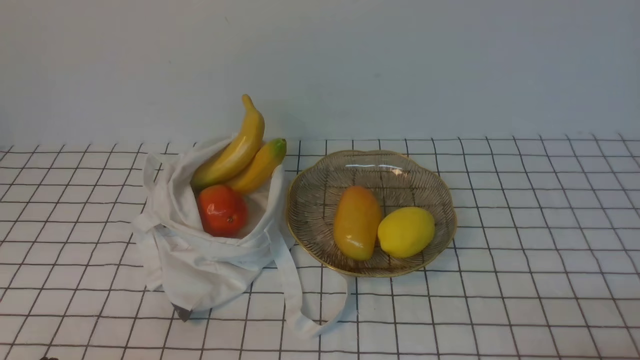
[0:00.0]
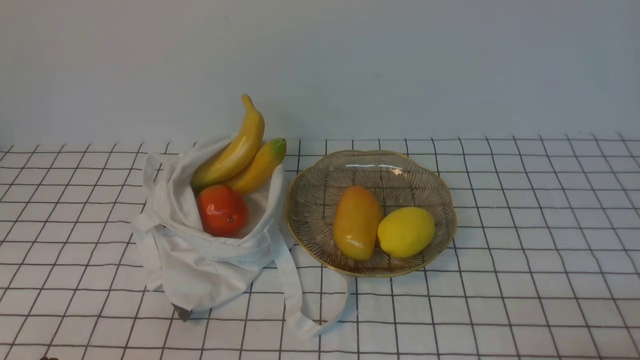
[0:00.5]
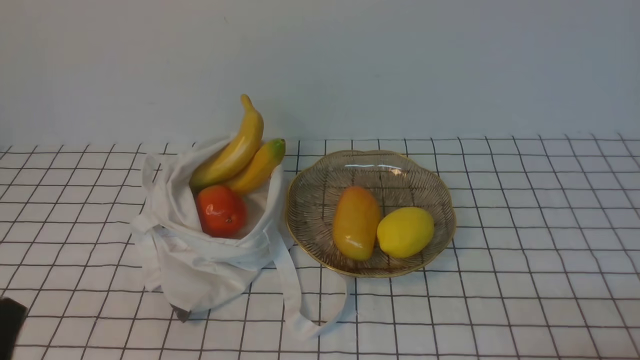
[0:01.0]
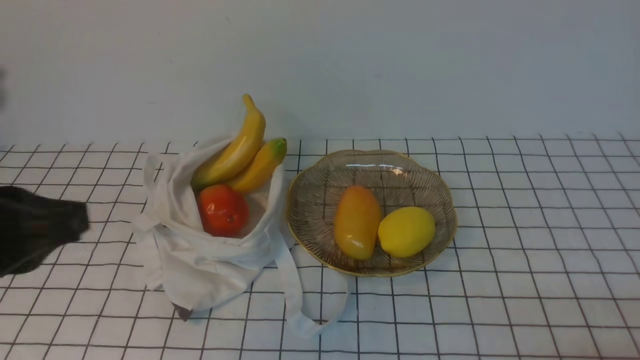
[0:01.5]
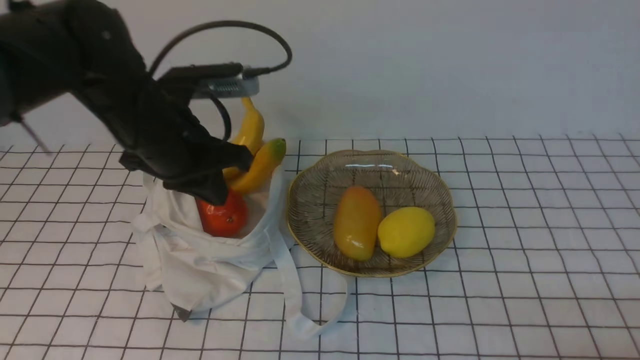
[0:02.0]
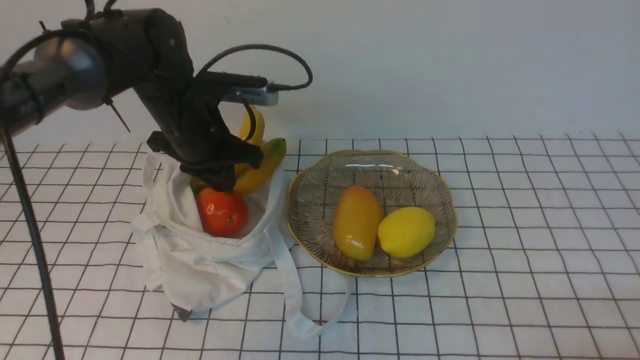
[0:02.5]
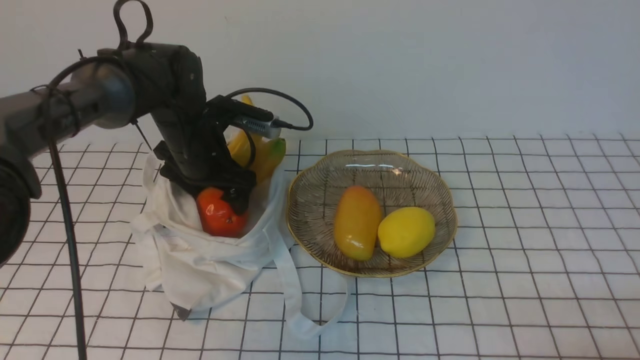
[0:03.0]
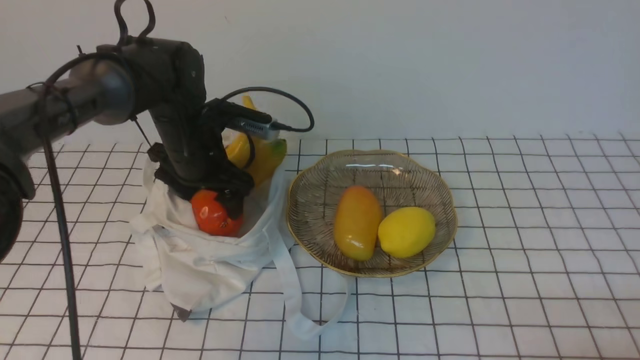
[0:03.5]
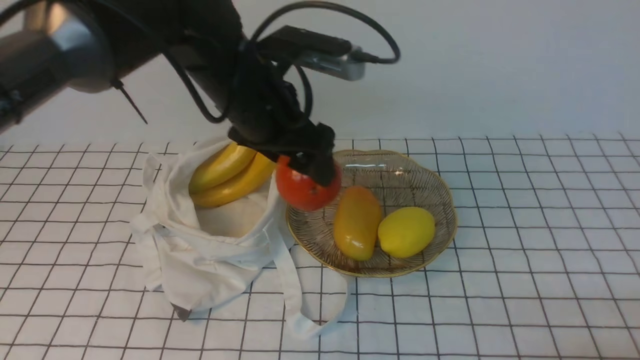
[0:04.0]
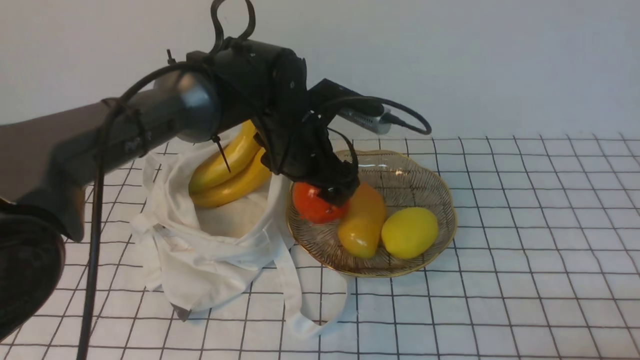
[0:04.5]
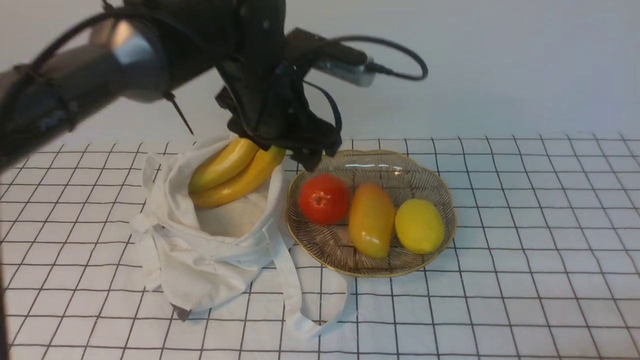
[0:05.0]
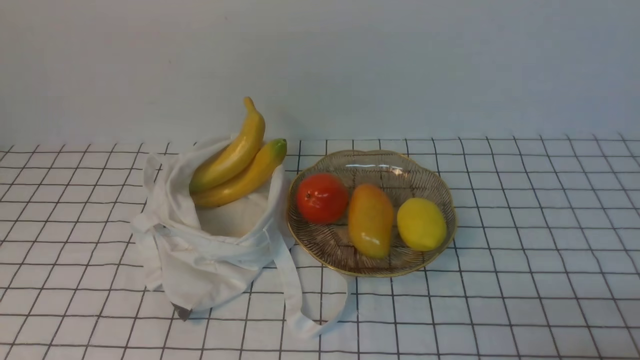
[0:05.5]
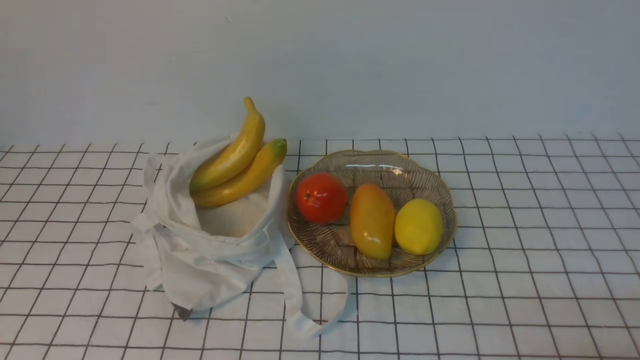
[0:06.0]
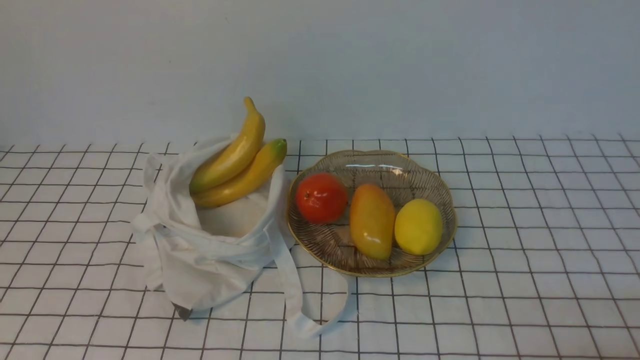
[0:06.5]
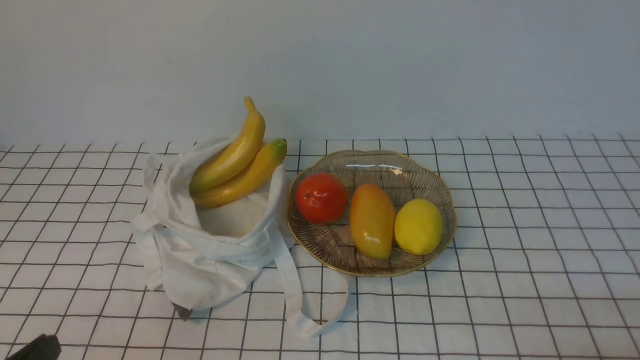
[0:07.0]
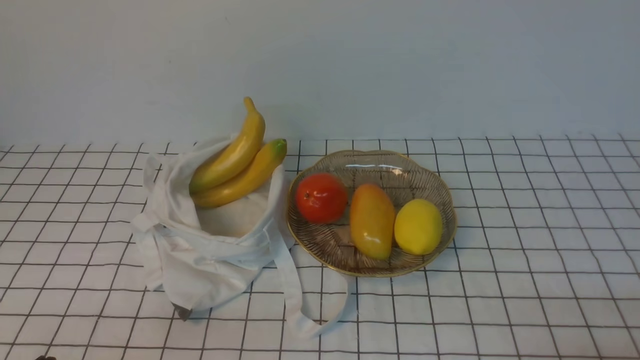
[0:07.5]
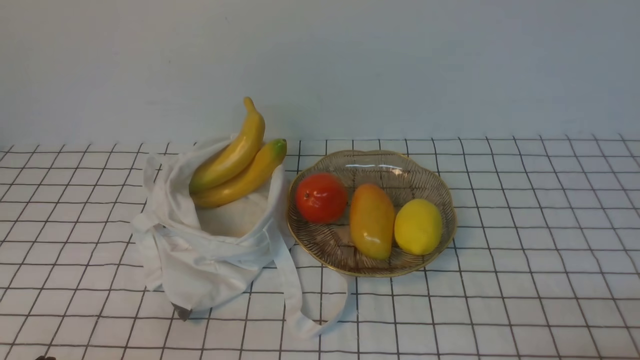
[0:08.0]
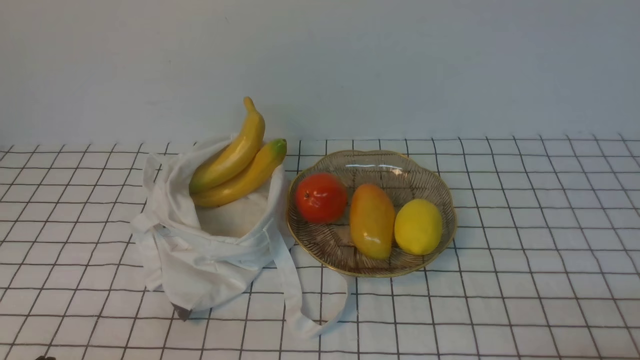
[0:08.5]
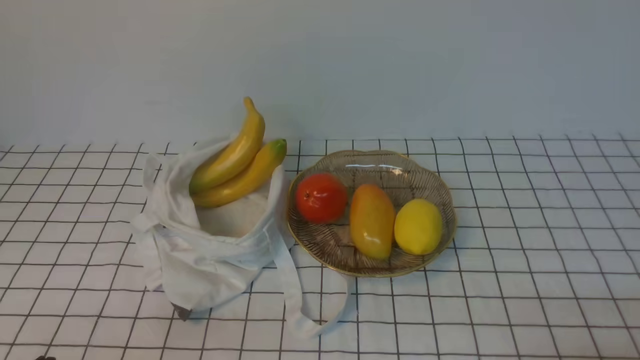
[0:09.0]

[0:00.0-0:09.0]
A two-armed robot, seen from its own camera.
Step, 0:00.0 to 0:03.0: use the left arm to grab an apple from the bag.
Step, 0:03.5 to 0:04.5: use the left arm to put the apple into the empty plate on the right.
0:00.0 to 0:02.0: The left gripper travels forward by roughly 30 cm.
0:02.0 to 0:04.5: The left gripper travels to the right by some 15 cm, and opens its fingers.
0:04.5 to 0:07.0: The left gripper moves backward and to the left, roughly 40 cm, and closes its fingers.
